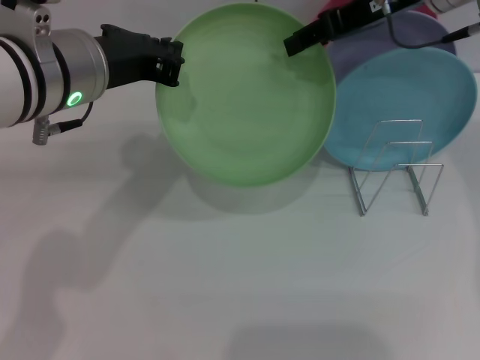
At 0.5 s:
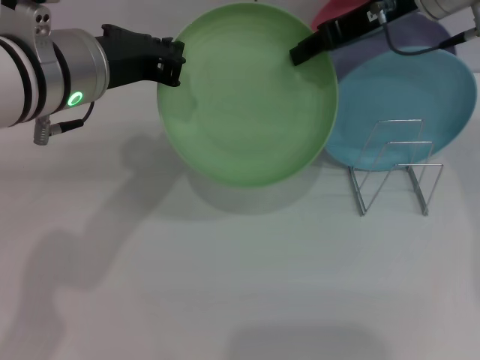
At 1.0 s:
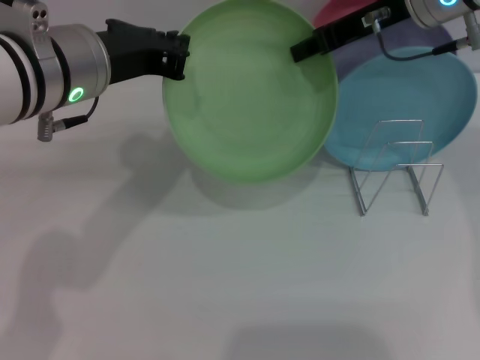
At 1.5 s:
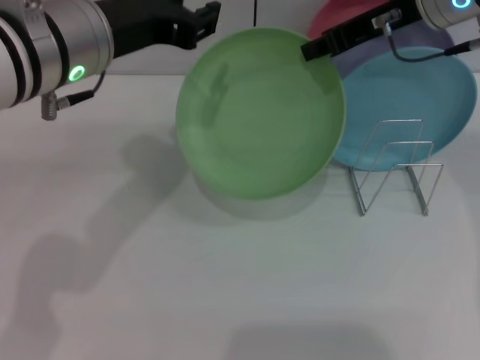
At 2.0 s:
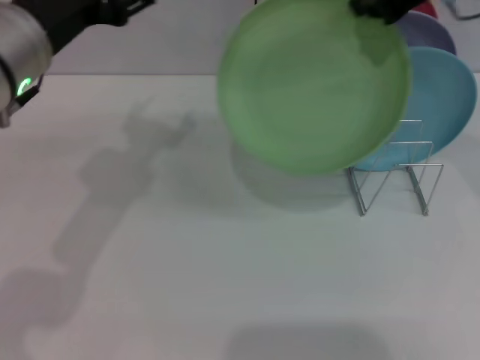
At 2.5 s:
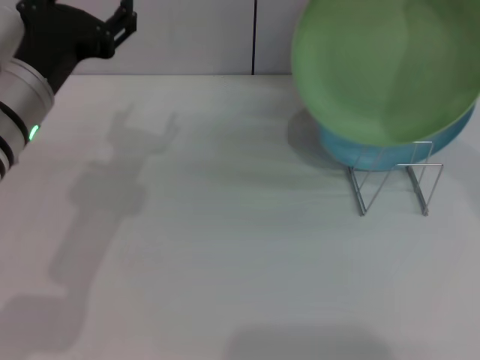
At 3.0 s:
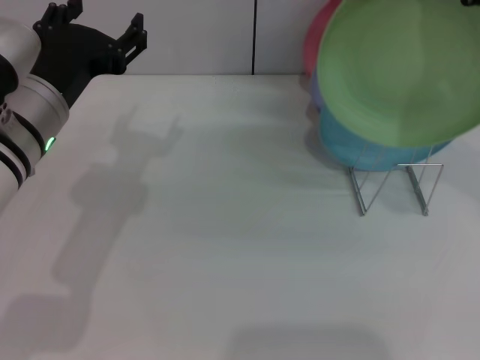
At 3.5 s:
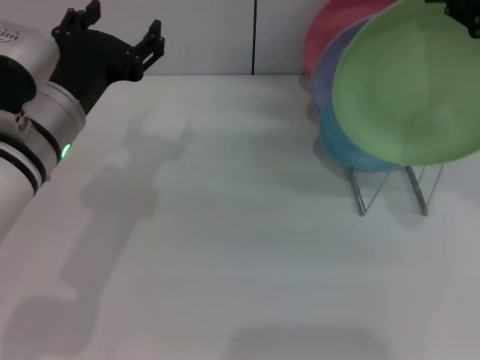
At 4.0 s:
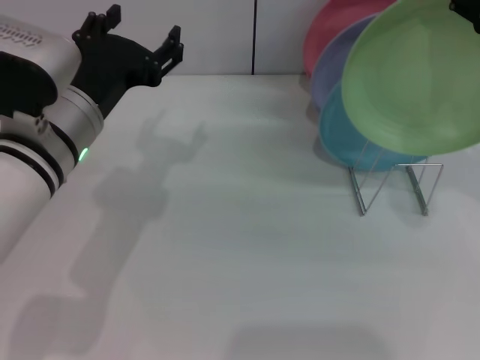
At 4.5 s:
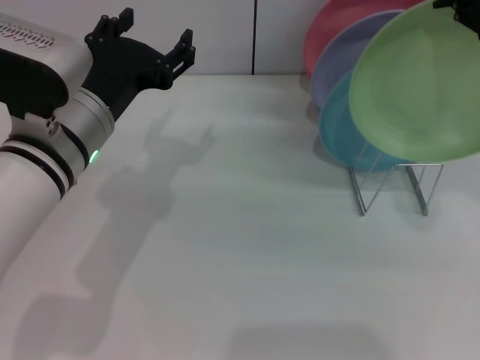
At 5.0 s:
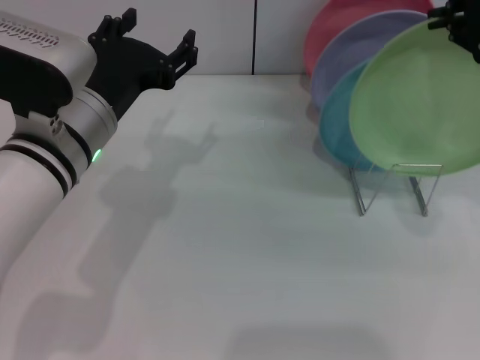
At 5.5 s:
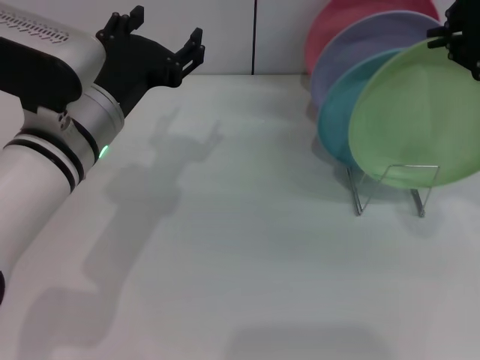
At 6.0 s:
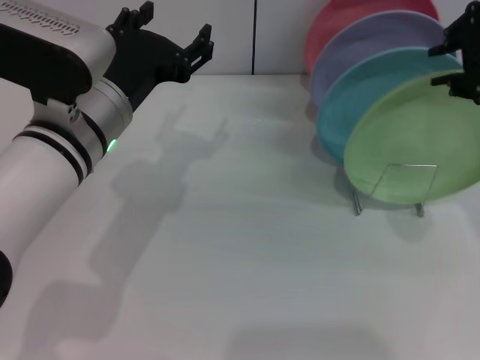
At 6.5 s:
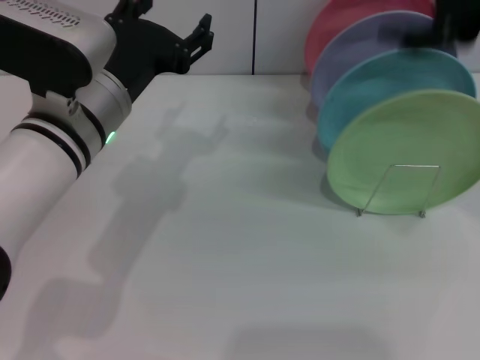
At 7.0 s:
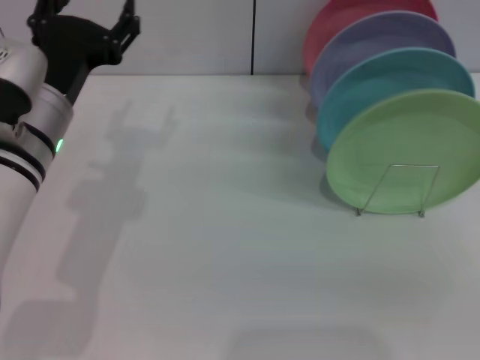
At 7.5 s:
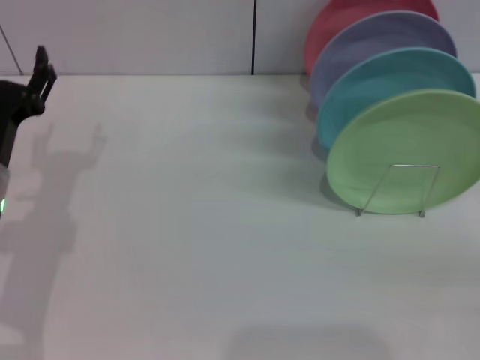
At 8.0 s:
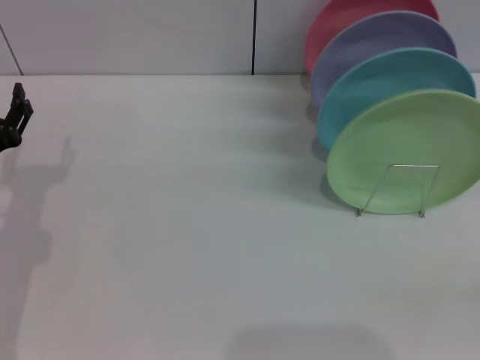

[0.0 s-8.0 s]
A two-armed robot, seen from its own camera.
Task of the whole recording: Grip the plate with one hand, pass it to the other, then set it on the shelf.
Step, 2.0 to 6.0 s: Place the plate on the shelf with the right gripper.
0.0 to 2.0 s: The left gripper opens up, while the right gripper shifts by approximately 5 cm, and closes.
2.0 to 4.0 s: The right gripper is displaced backward by about 5 cm; the left gripper goes some 5 cm downward.
4.0 to 6.0 s: There are only small adjustments of the grippers.
6.0 to 8.0 s: The right gripper moves downward, backward and to the right, approximately 35 cm, and opens its fingers. Meanwhile the left gripper is displaced to the left and downward by roughly 20 cm.
